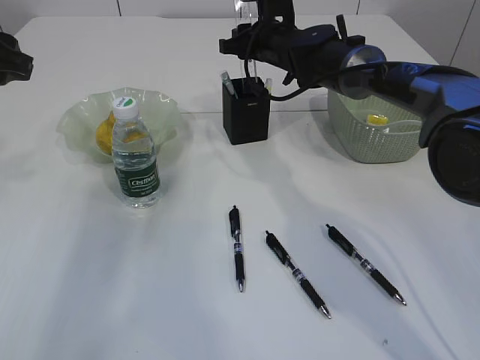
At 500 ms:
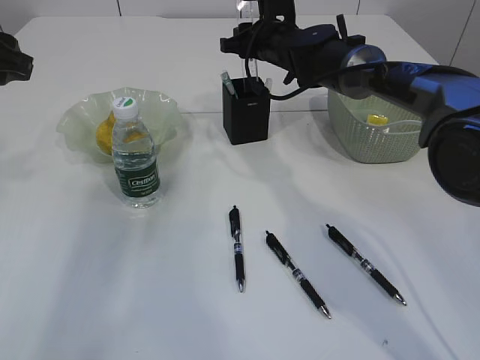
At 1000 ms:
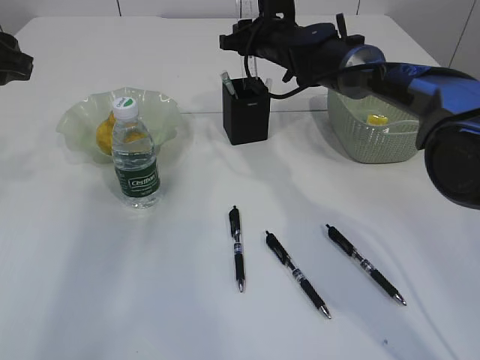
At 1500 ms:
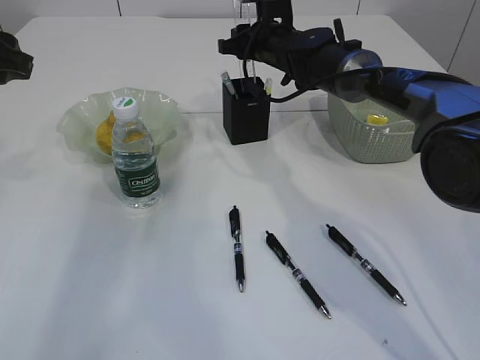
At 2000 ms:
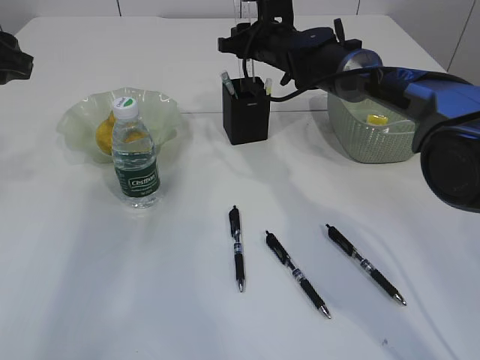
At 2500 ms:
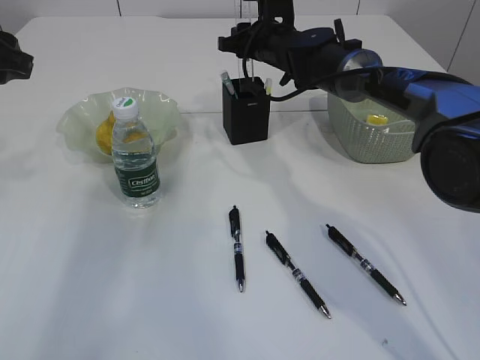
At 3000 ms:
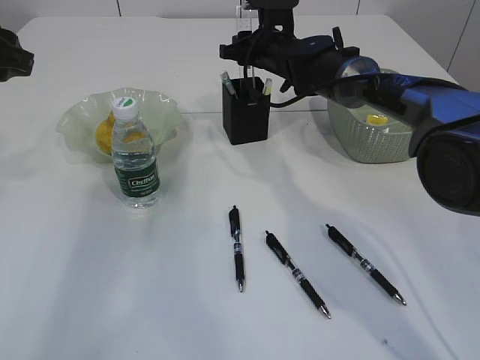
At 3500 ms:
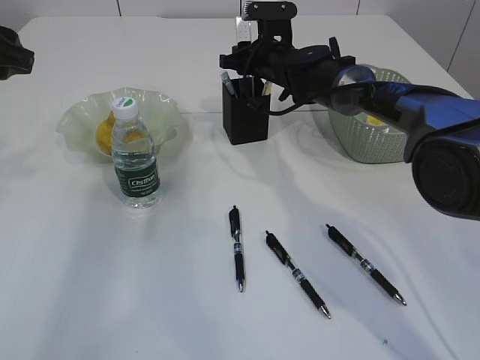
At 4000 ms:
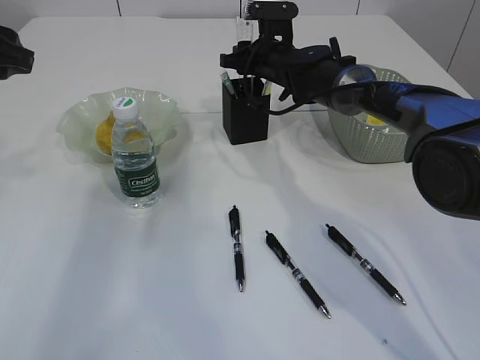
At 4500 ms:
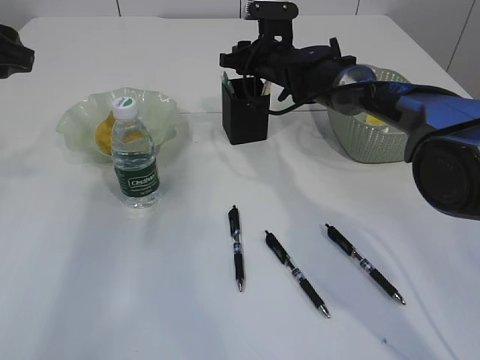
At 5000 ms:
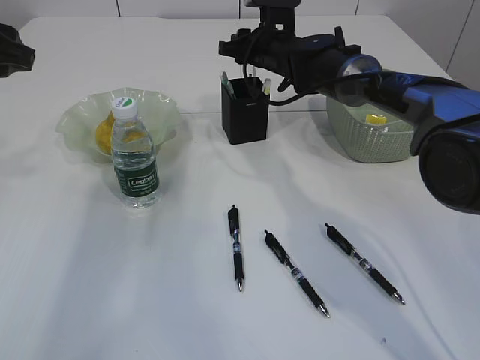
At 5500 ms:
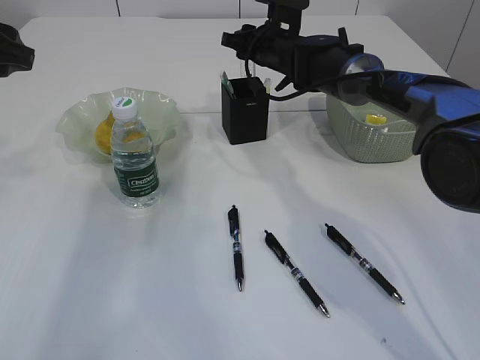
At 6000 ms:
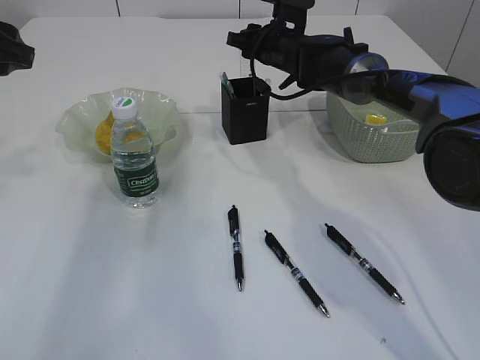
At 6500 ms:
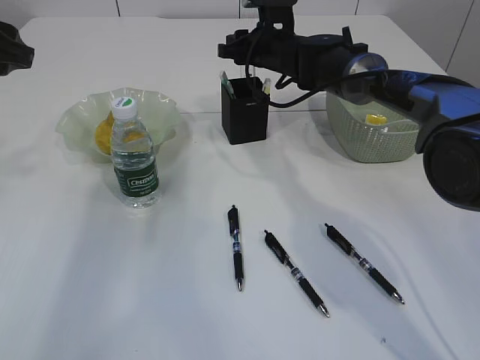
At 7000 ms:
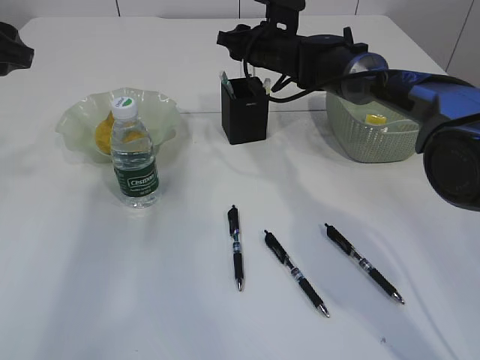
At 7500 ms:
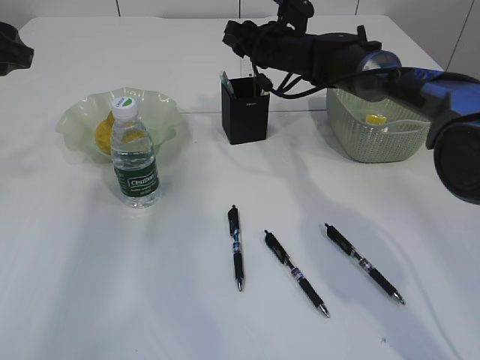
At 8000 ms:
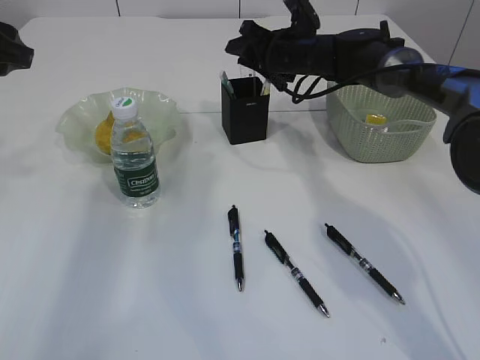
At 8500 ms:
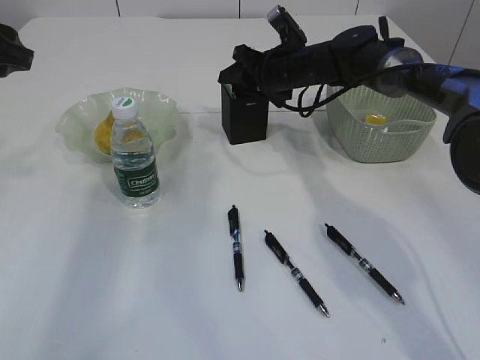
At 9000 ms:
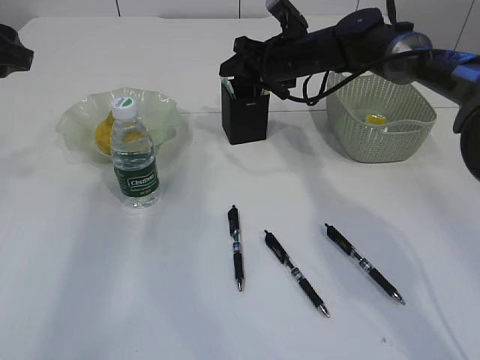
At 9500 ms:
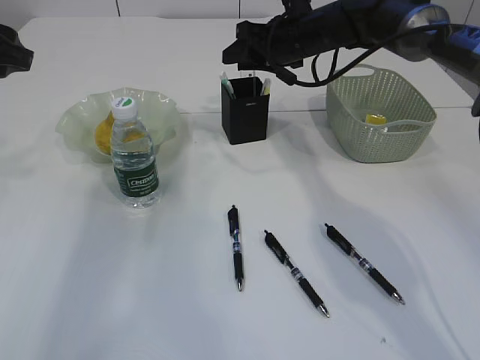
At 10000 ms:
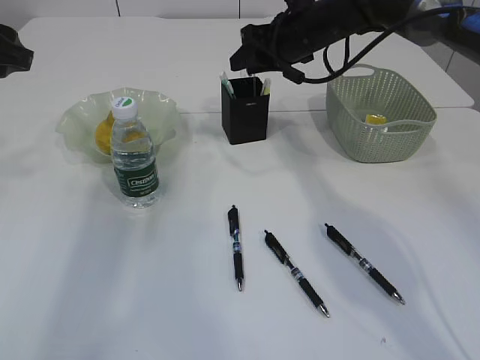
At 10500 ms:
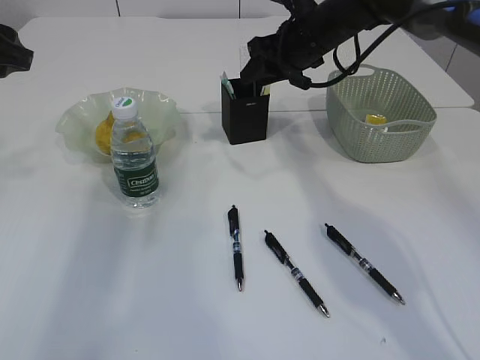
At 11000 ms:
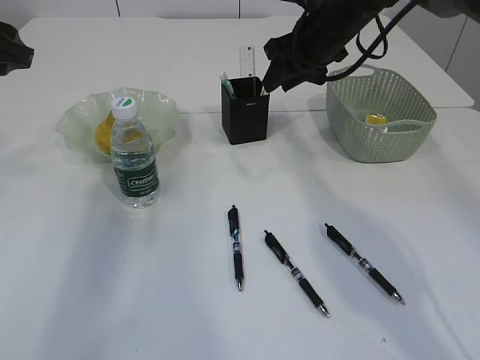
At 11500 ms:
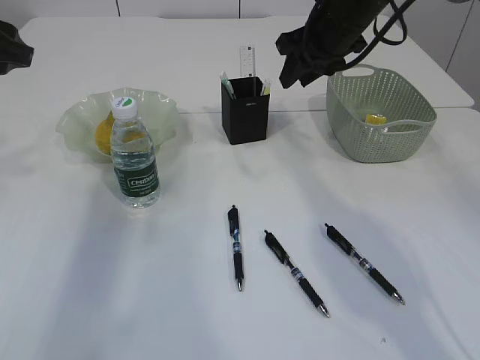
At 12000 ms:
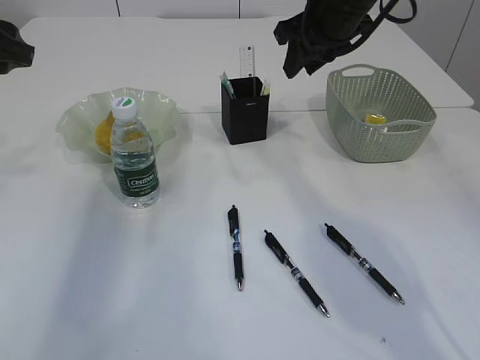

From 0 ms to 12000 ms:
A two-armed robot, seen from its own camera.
Step, from 0 ms to 10500 ms: Place the ruler into the pen holder.
From 0 ms to 2000 ms: The two grippers keep their place.
From 2000 ms to 6000 ms: The grippers move only a little.
From 8000 ms to 10000 ms: The right gripper travels upward by about 5 cm.
From 10000 ms to 12000 ms: The right gripper heads upward and backward, covering roughly 10 cm.

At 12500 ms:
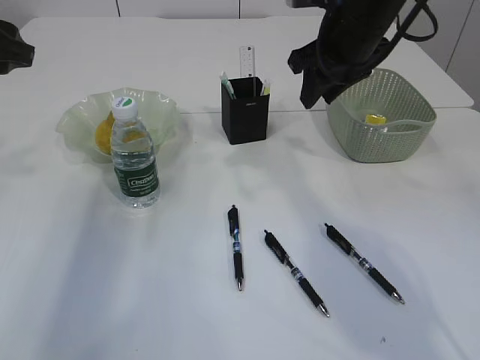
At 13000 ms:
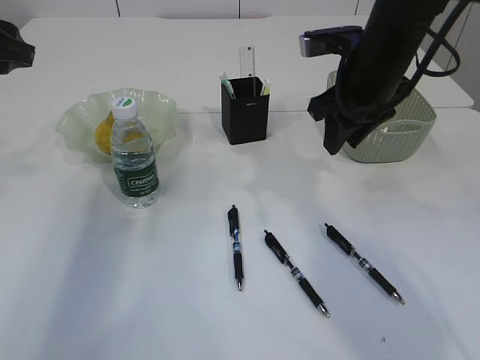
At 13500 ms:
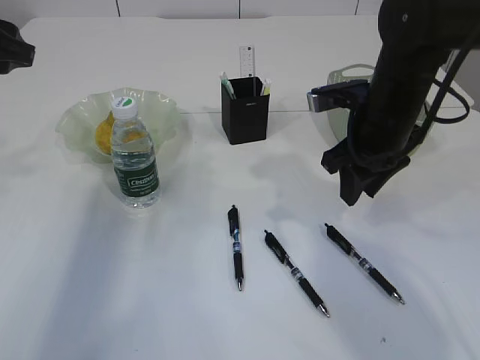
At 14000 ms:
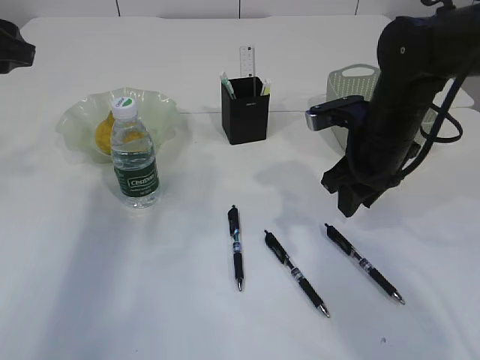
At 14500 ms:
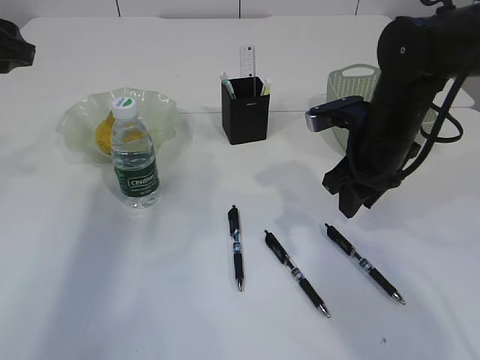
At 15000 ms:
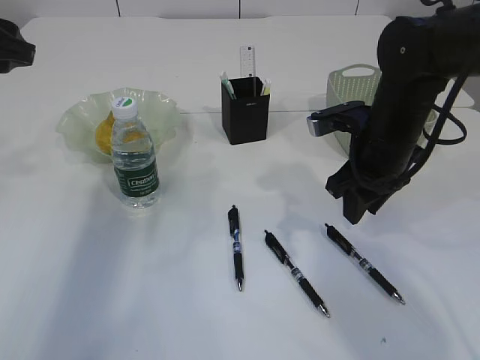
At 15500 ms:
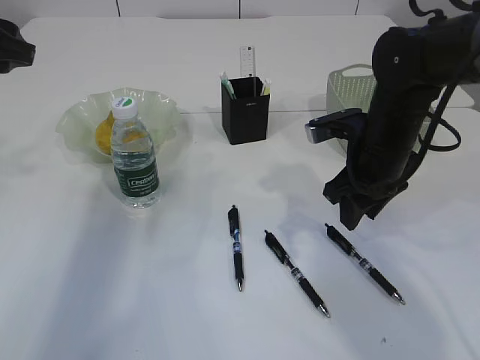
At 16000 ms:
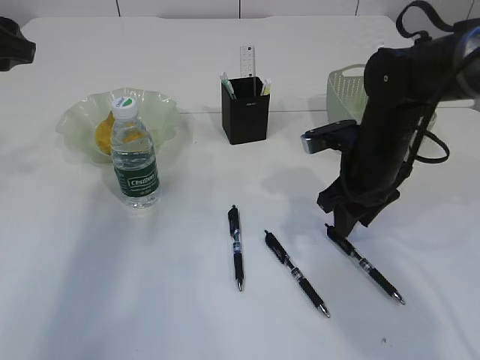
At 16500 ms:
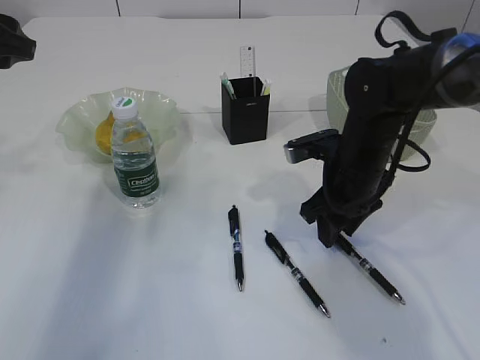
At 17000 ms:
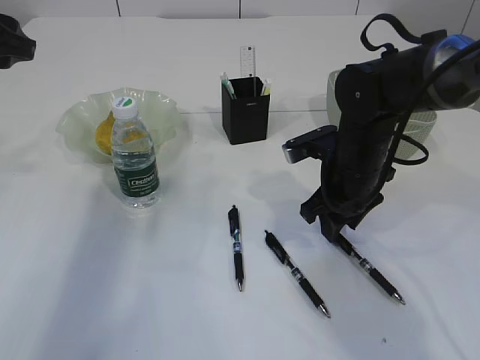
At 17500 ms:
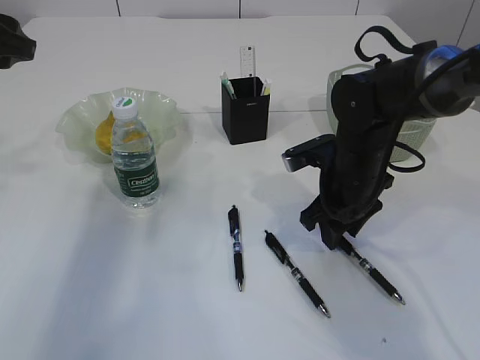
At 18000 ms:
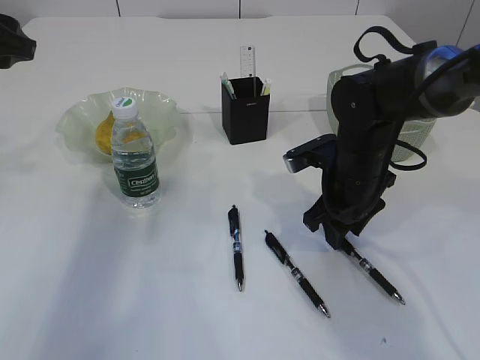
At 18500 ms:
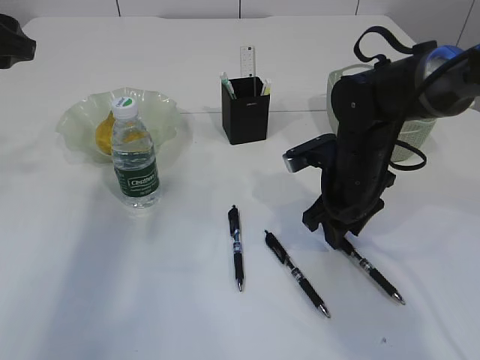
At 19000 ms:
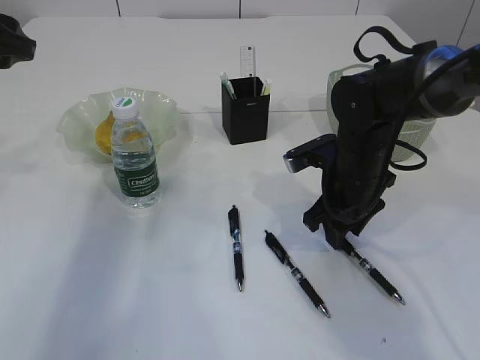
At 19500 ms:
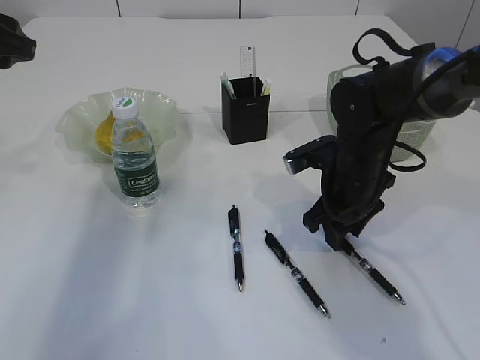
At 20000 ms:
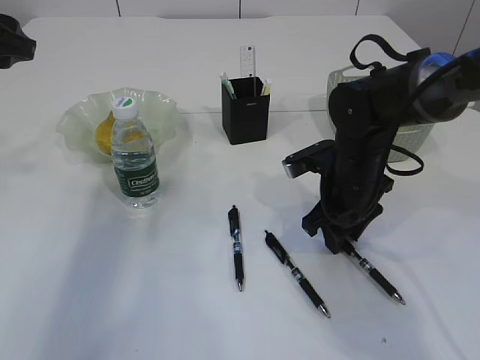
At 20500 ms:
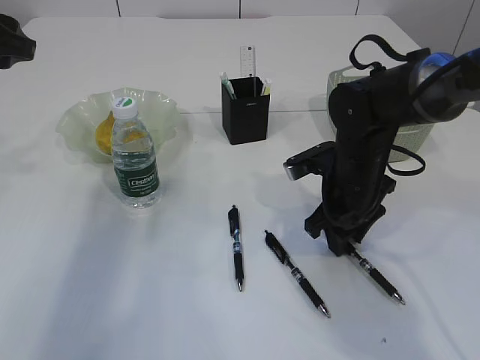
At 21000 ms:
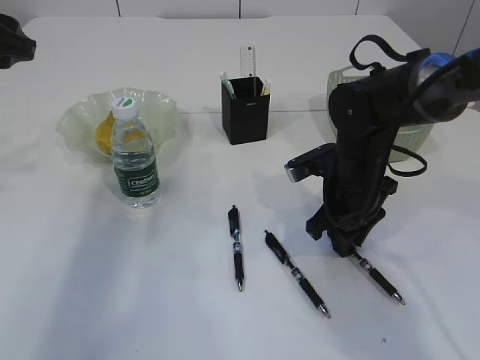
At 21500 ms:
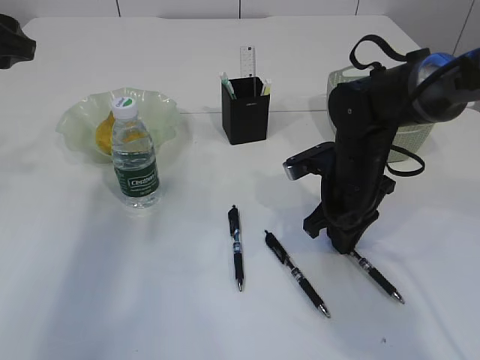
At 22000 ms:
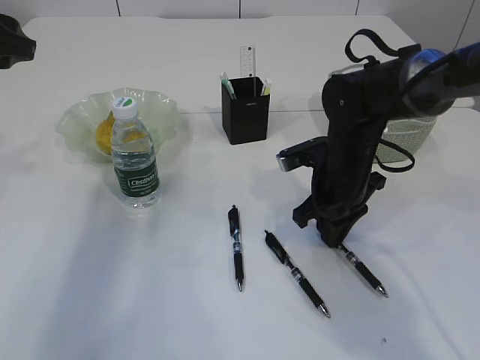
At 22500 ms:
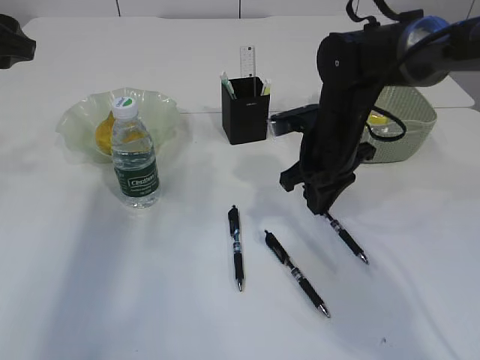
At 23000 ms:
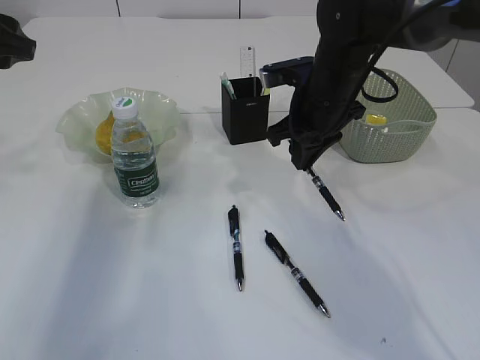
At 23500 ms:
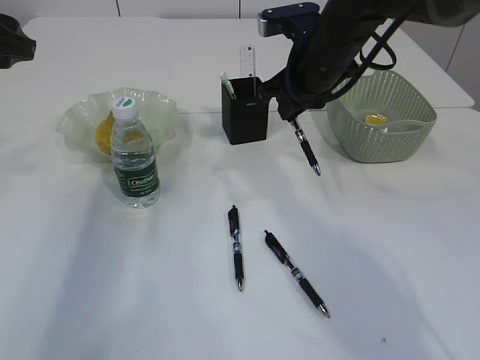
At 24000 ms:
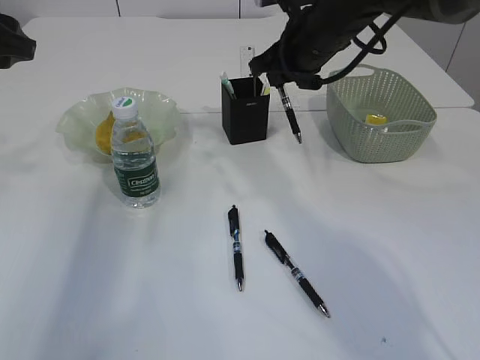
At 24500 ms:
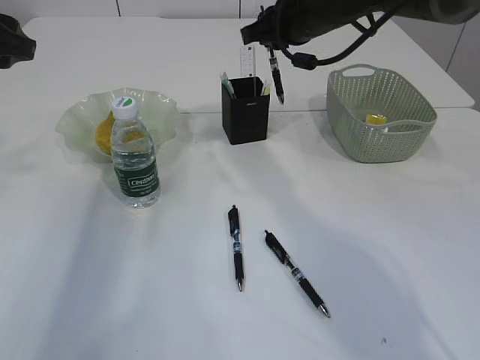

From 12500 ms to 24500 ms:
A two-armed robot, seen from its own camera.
Step, from 12500 ms to 23000 ms: Pick up the pen with right arm.
From 12500 ms to 14500 ms: The right gripper goes some 10 cm downward and backward.
From 14500 ms to 18500 ms: The grippers make only small movements.
From 18500 ms to 20500 ms: Neither gripper changes place.
From 20500 ms to 22500 ms: The right gripper changes place by about 5 cm, and closes its fingers.
From 22500 ms to 24500 ms: The right gripper moves upward and forward, roughly 15 cm.

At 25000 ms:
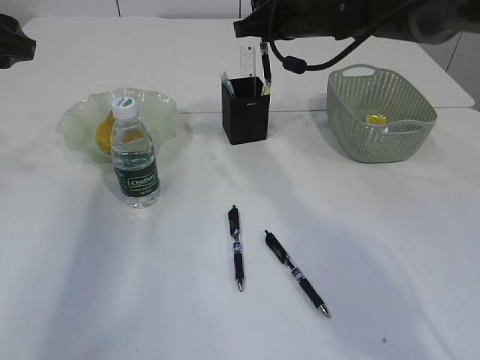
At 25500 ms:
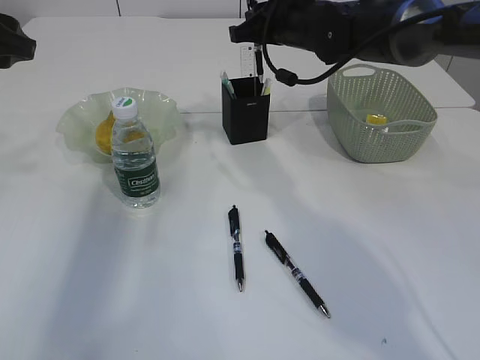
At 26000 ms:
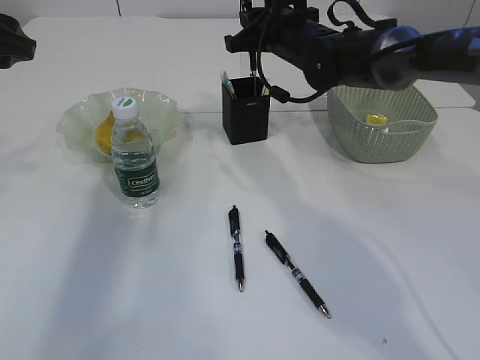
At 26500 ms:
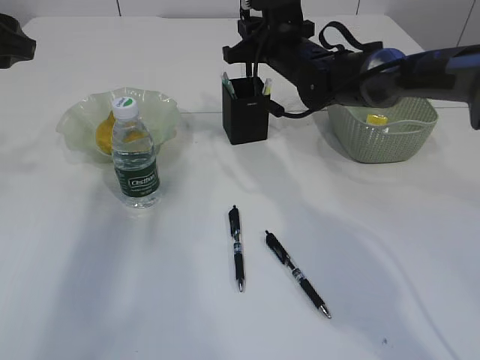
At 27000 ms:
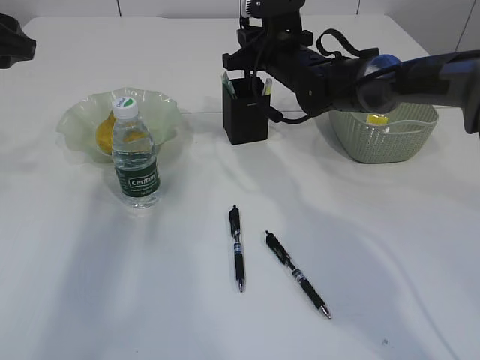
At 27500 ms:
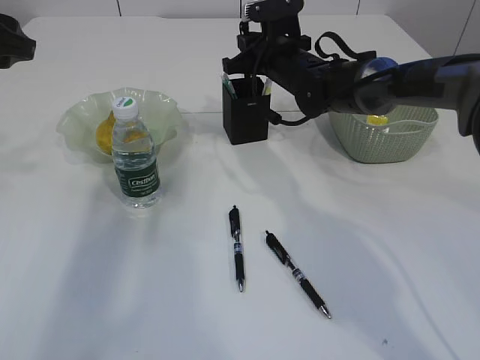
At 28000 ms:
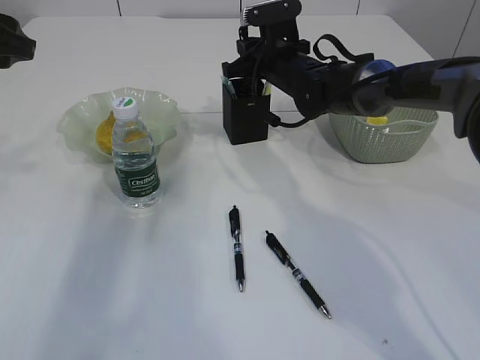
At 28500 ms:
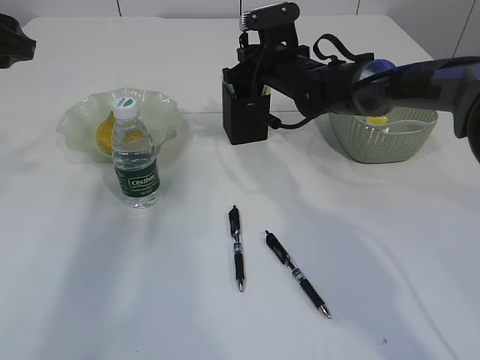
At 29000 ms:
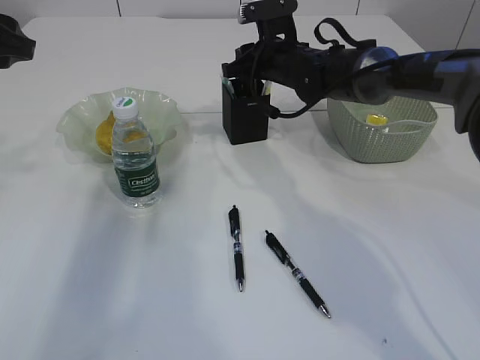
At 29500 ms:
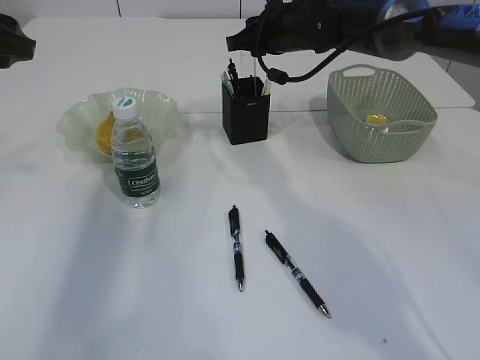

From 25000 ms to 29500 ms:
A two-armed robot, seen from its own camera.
From 25000 ms to 27000 ms: The right gripper heads downward, covering approximately 10 cm.
From 27000 ms to 29500 ms: The grippers make only small movements.
